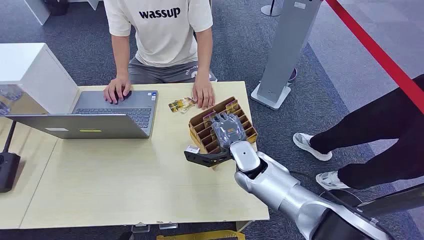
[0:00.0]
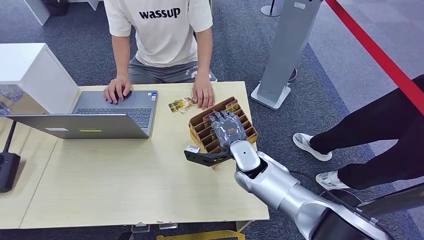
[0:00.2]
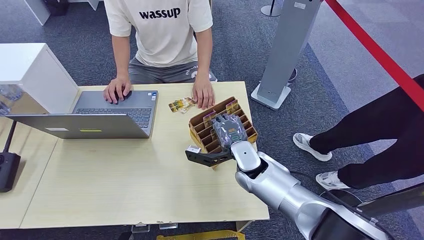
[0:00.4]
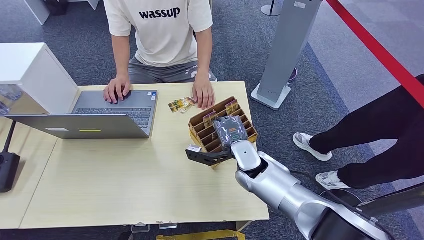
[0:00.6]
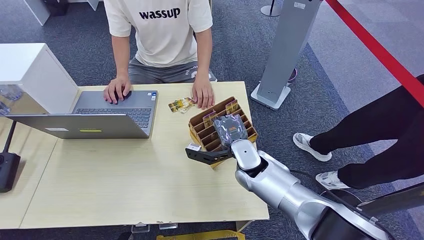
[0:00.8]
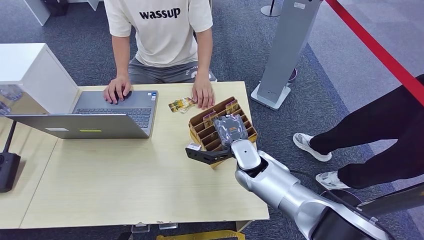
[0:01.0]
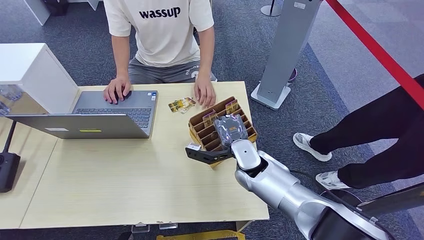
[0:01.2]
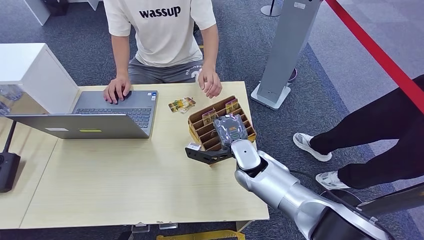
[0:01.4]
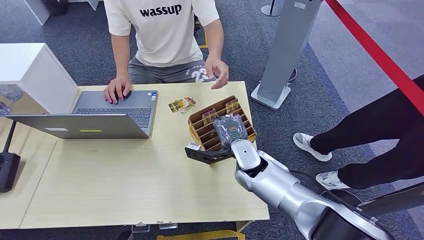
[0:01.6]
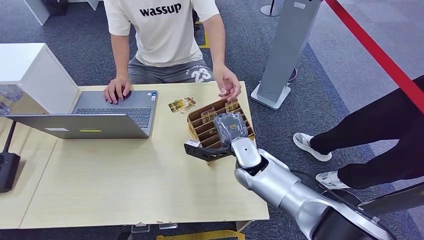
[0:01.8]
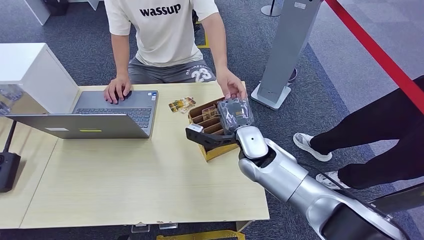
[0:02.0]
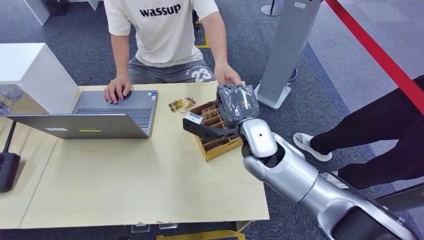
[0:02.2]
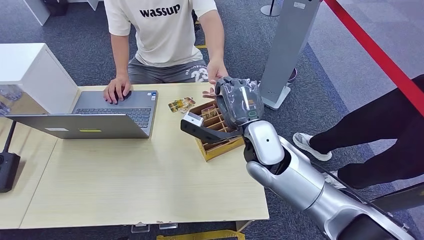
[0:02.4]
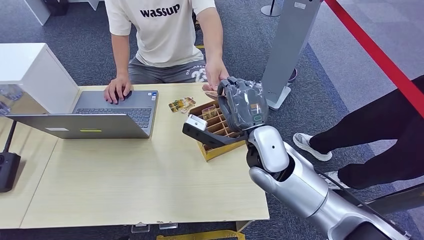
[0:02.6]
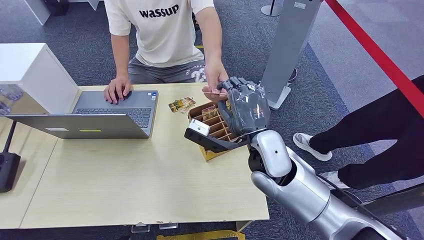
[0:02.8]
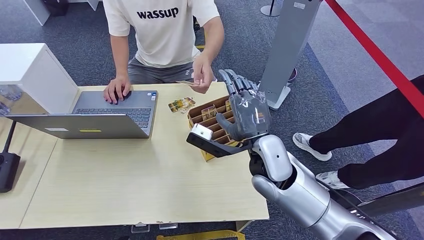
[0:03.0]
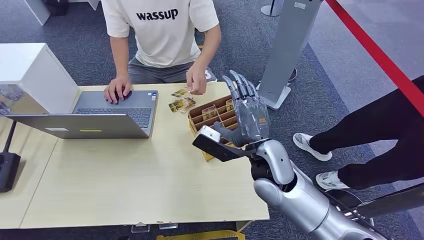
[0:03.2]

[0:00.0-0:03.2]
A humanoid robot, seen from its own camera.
Step, 0:00.0 to 0:01.2: Pick up the key card from the card box.
Step, 0:02.2 to 0:03.0: Hand the key card to the target.
0:01.6 to 0:03.2: The right hand goes some 10 cm upward and backward.
